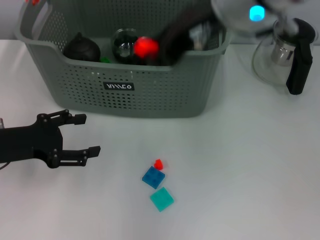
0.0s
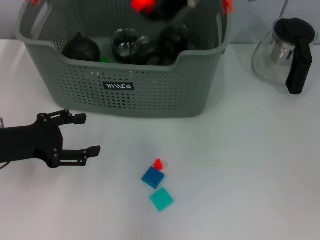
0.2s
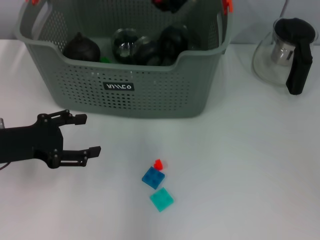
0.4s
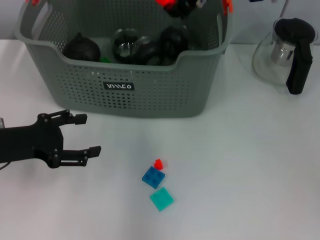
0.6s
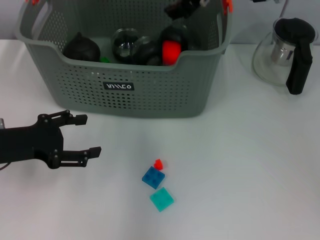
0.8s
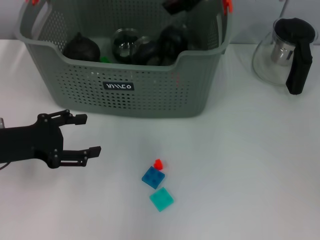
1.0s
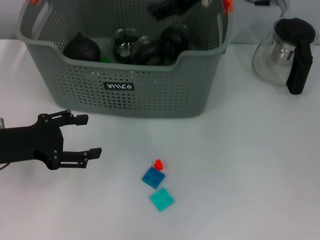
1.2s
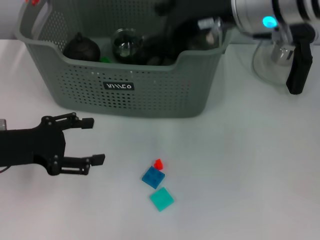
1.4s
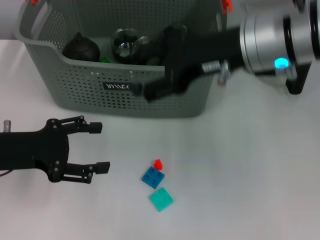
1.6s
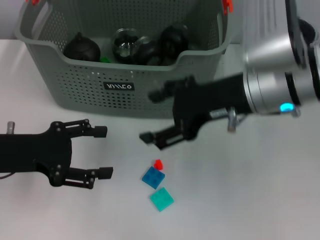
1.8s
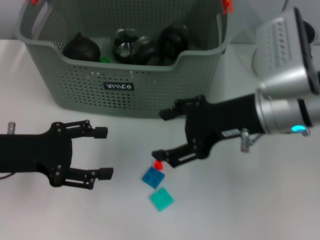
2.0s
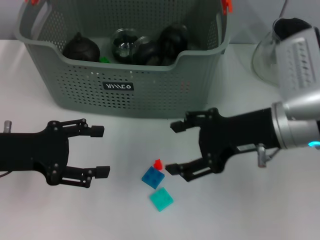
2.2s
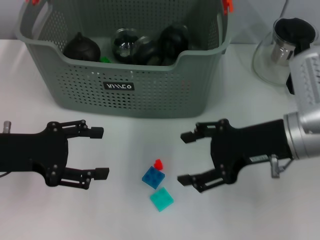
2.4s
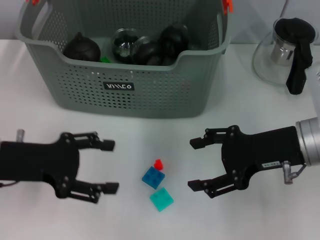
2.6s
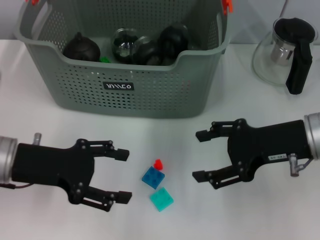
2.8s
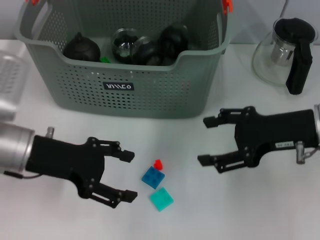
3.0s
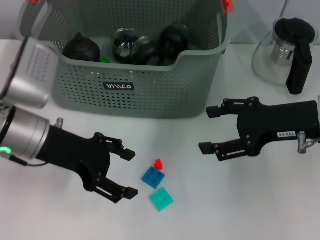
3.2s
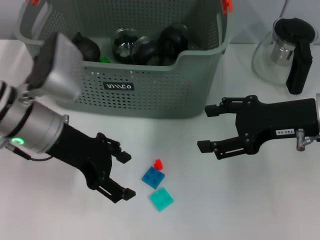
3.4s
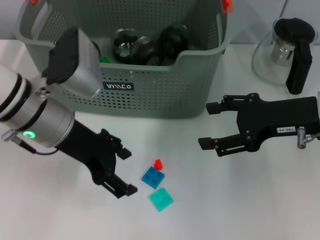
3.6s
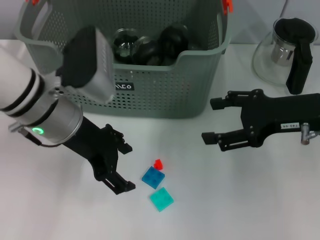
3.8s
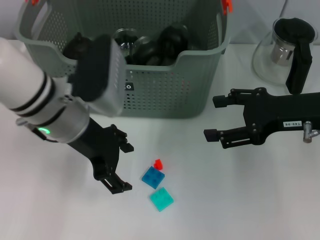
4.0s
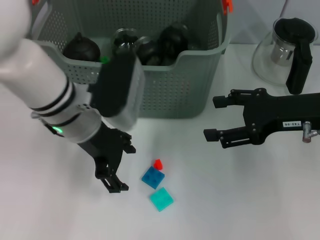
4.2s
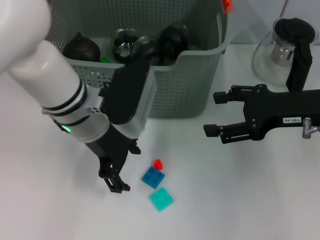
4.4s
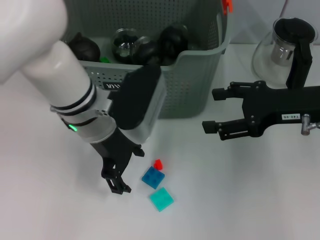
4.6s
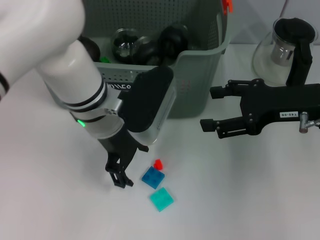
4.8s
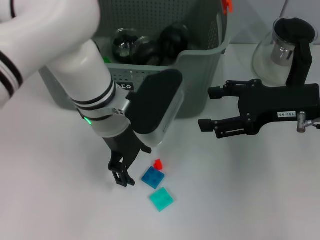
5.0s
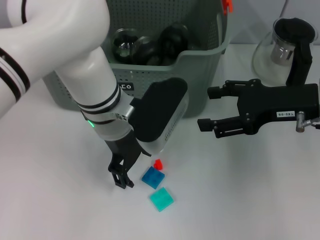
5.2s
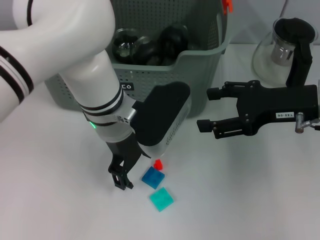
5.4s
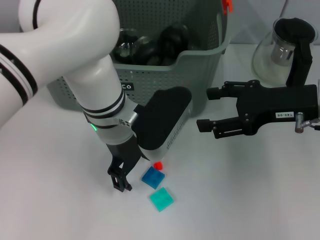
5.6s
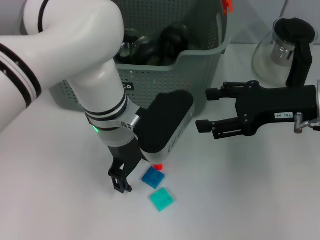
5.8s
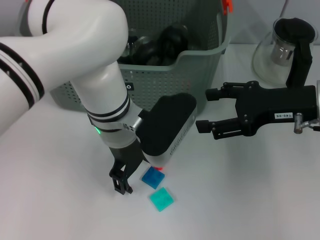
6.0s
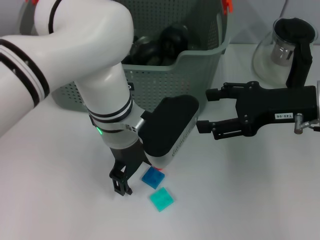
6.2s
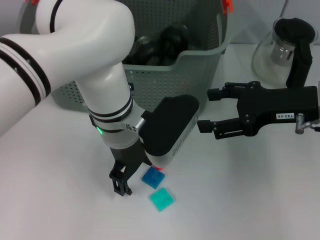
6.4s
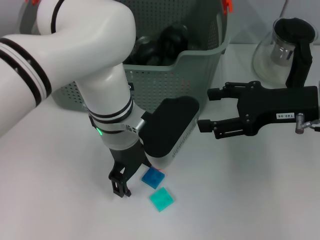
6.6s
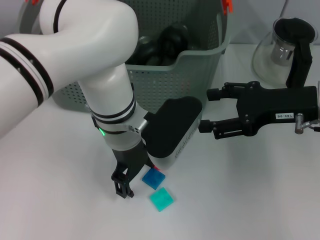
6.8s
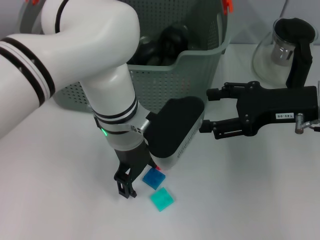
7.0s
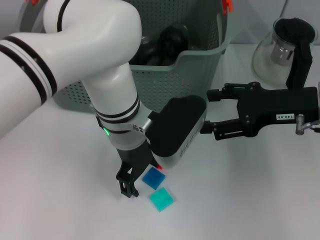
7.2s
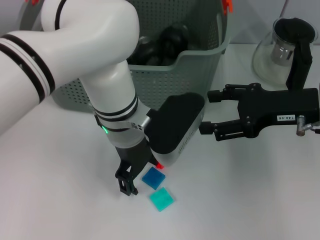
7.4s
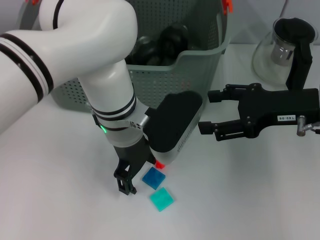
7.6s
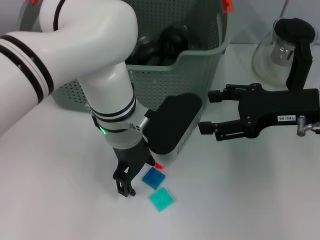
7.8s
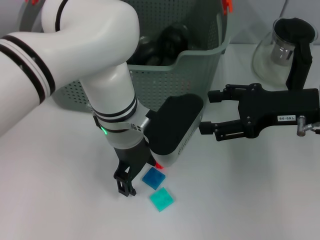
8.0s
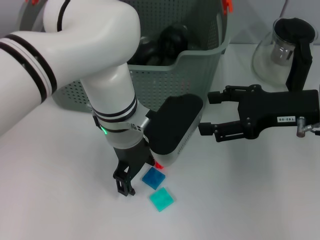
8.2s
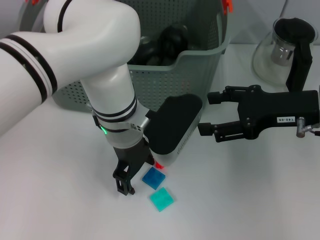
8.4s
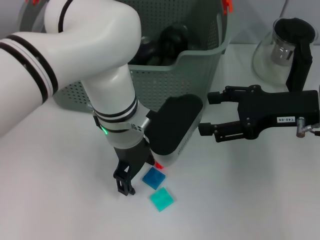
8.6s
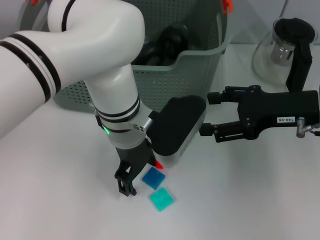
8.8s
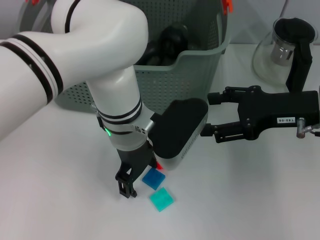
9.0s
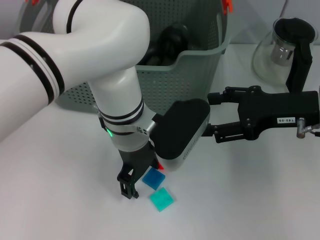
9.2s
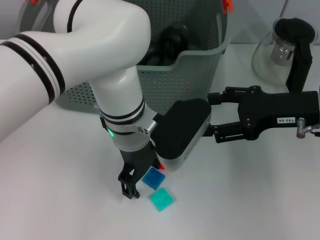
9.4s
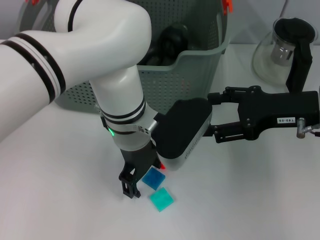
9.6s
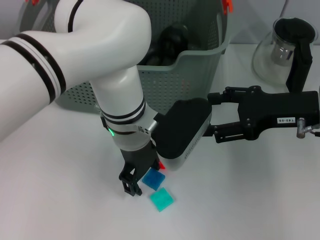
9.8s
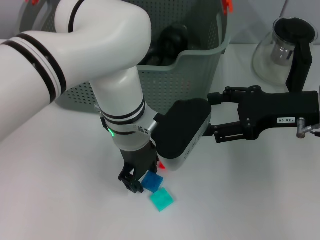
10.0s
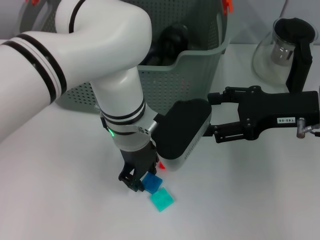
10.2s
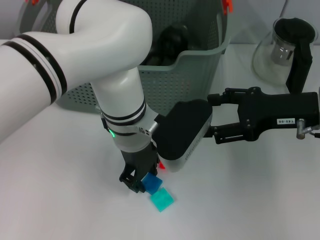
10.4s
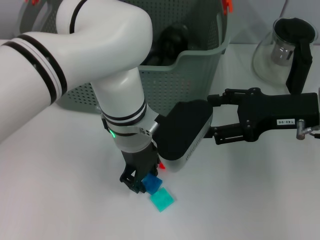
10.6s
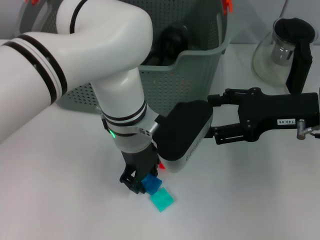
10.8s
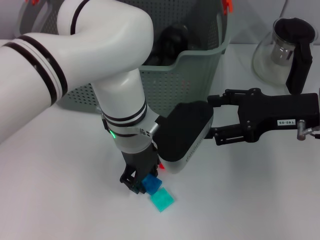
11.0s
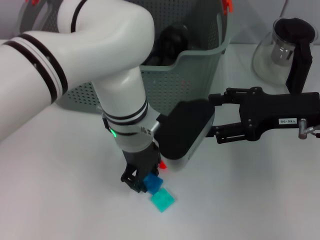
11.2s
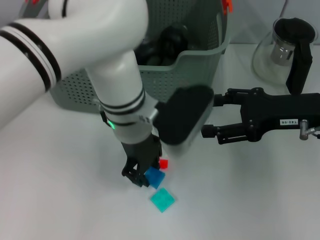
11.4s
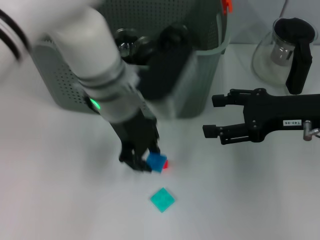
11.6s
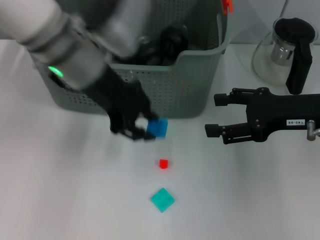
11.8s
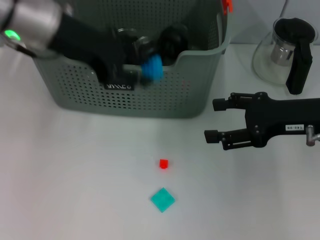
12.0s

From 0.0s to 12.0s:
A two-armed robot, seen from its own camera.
Task of the whole recording: pick up the teacup on the table and place it into the storage bin, pick up the block on the table and place it into the storage bin.
Step, from 1.0s to 10.4s: Grasp the dark blue block with left gripper.
From 0.0s to 1.6s: The right gripper moves downward, approximately 5 cm, reaches some 10 cm forward, then returns, and opens its fingers.
From 1.6s to 3.0s: The right gripper goes approximately 15 cm to the right and downward. Meanwhile the left gripper goes roughly 5 cm to the right.
From 3.0s to 4.4s: The left gripper is displaced to the right and forward by approximately 10 cm.
From 4.4s to 6.0s: The left gripper moves to the right, about 5 cm.
From 6.0s to 7.6s: The two grippers keep their place.
From 7.6s to 9.0s: Both grippers stay about where they are.
From 9.0s to 10.4s: The left gripper closes.
From 10.4s to 12.0s: The left gripper shifts about 20 cm to the left and upward.

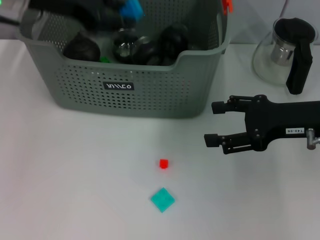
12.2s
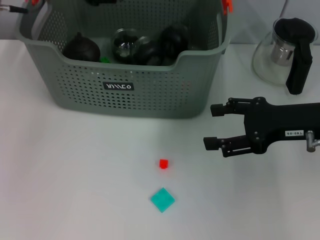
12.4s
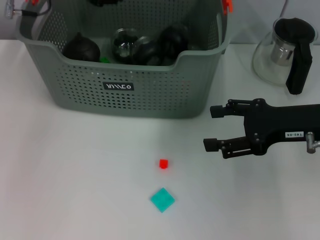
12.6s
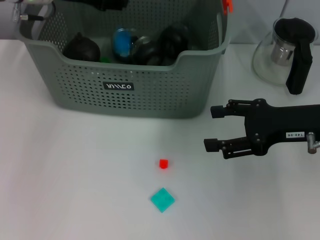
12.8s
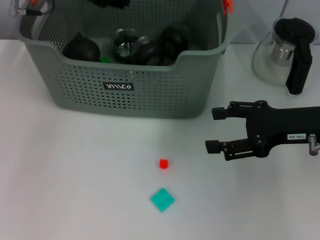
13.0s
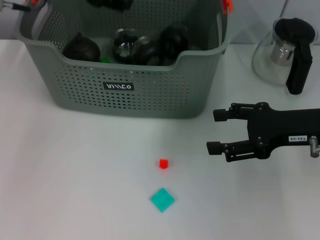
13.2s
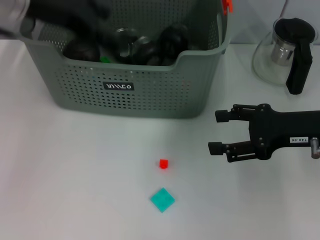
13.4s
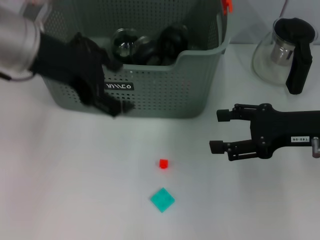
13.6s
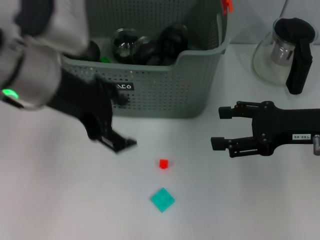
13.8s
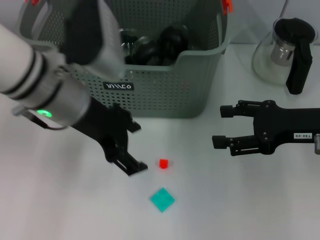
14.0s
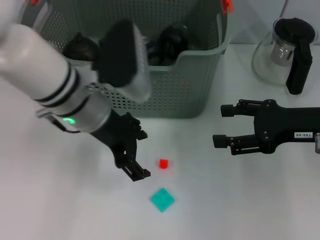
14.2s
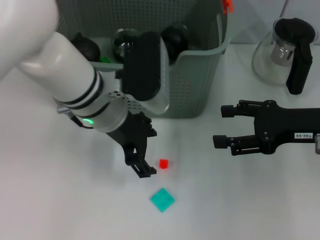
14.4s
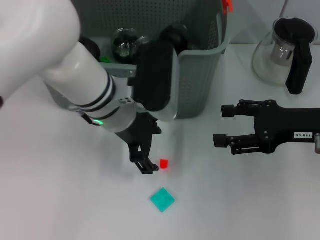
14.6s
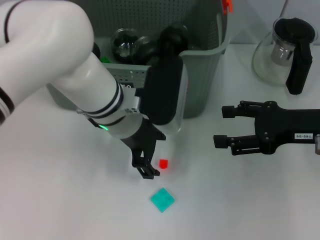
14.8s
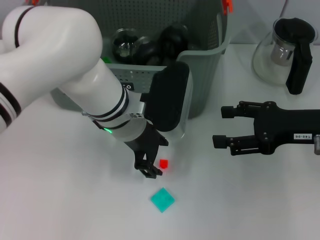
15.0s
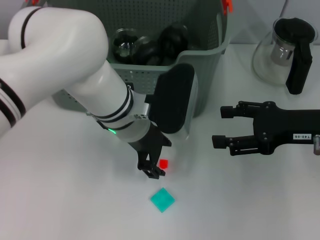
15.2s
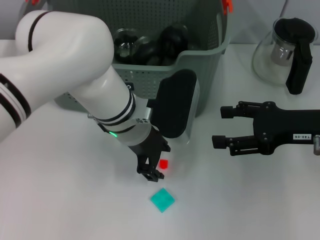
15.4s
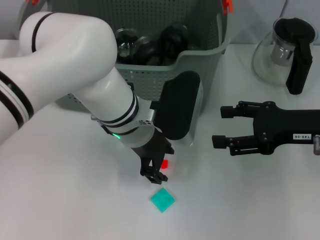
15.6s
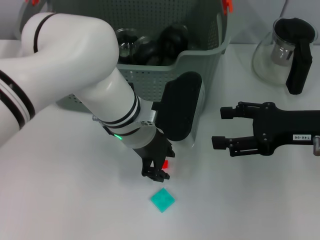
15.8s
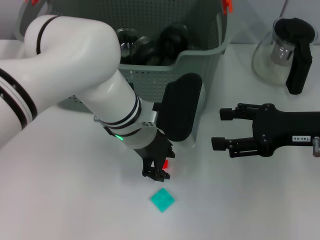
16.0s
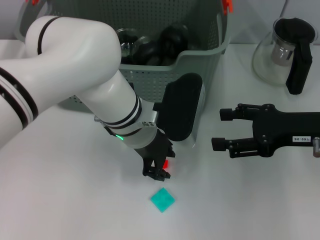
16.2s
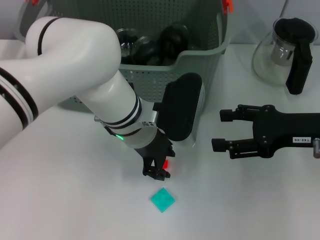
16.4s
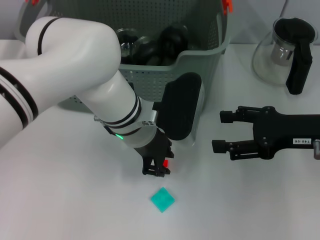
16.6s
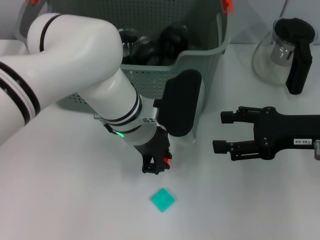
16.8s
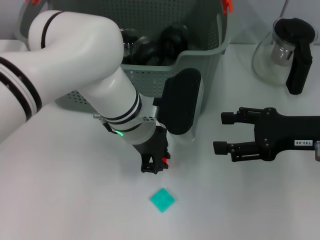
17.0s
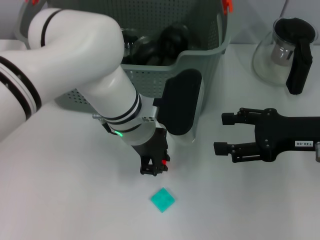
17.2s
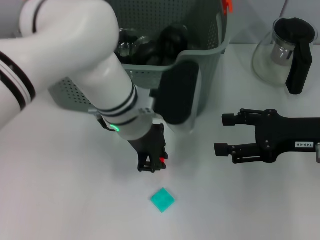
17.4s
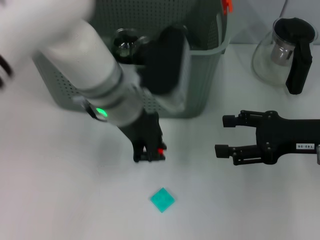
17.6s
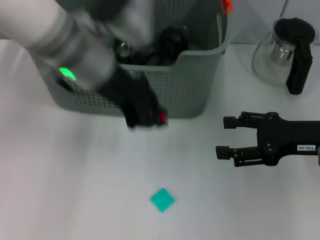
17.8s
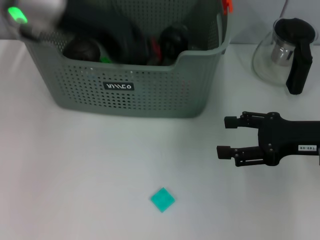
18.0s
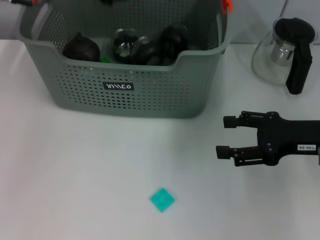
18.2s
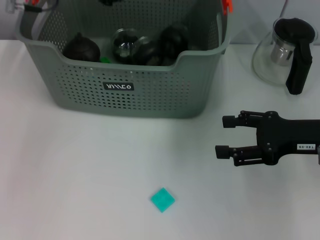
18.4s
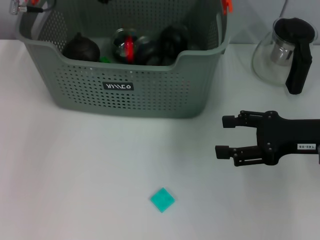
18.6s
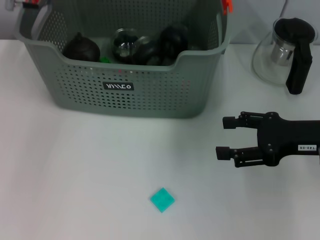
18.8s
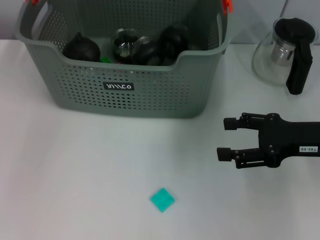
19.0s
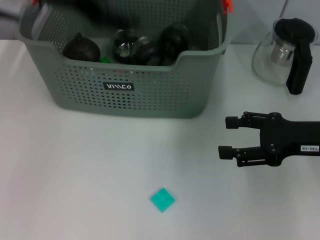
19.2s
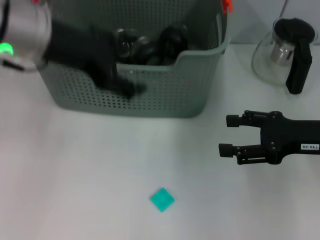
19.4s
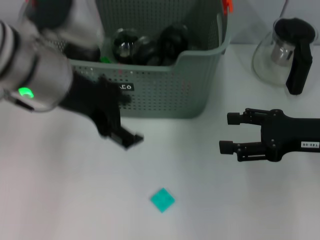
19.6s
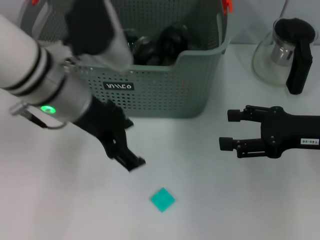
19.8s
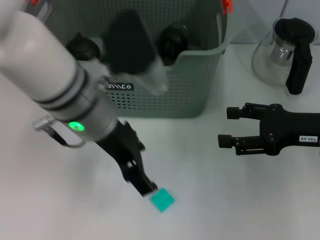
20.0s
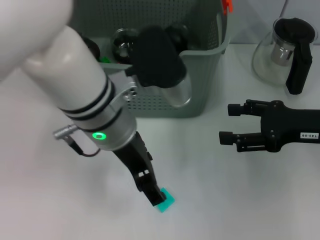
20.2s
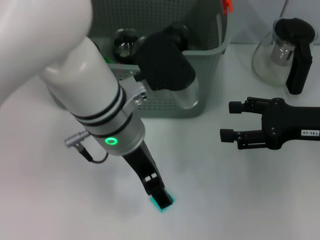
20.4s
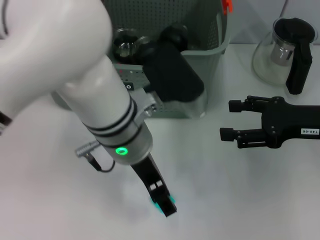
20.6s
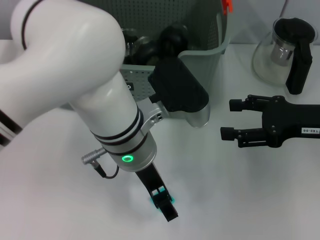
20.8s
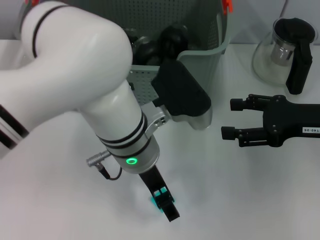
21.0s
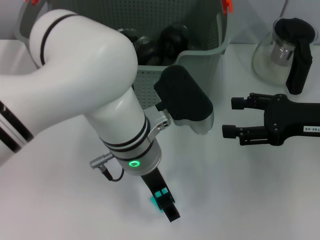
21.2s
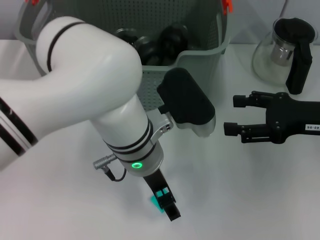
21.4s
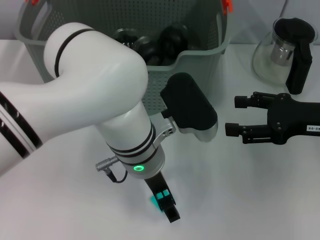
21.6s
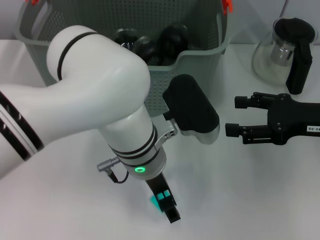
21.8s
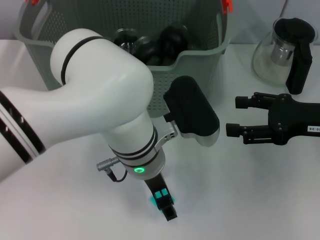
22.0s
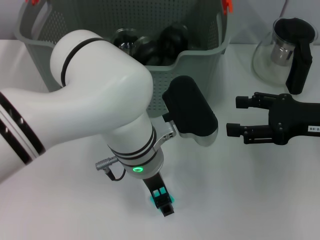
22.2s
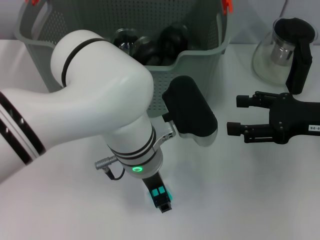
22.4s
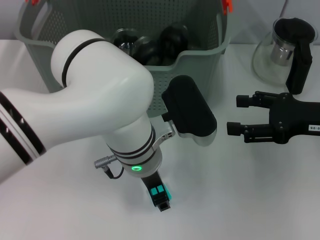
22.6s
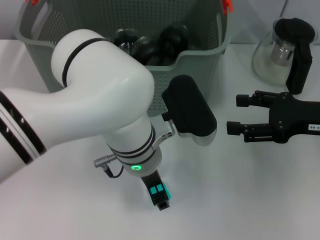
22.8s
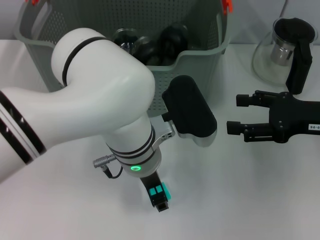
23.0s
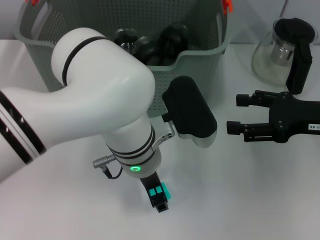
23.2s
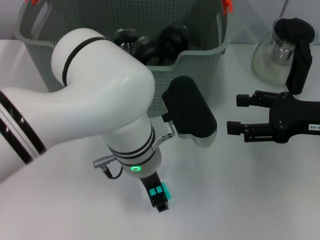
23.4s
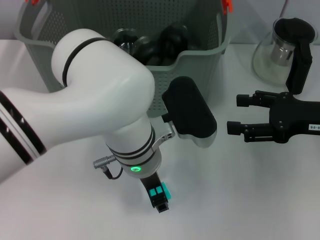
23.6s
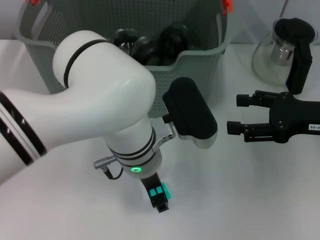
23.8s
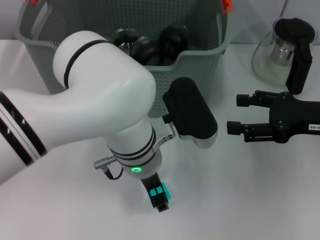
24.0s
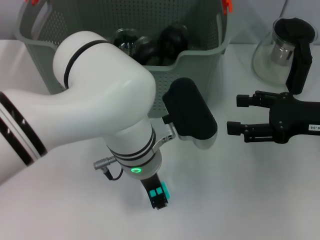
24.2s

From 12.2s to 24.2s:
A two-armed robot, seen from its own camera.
Task of the whole recording: pick up the teacup on the table and place it into the storage bin, pick up the block on the table and place it into the storage bin.
Step, from 13.2s to 16.8s: Grasp the orange block with left gripper.
Step, from 17.0s to 18.6s: Place the orange block in the storage box with left gripper.
From 12.2s to 13.8s: The left gripper shifts approximately 10 cm backward and to the right, and opens.
From 13.8s to 15.2s: The left gripper goes approximately 15 cm to the right and downward.
From 15.2s to 16.6s: The grippers stay close to where they were, moving slightly.
From 16.6s to 18.2s: The left gripper is displaced upward and to the left by about 20 cm.
From 18.2s to 19.8s: The left gripper travels backward, downward and to the right by some 15 cm, and opens.
From 19.8s to 21.2s: The left gripper travels to the right and downward by approximately 10 cm.
From 22.6s to 24.2s: Both grippers stay about where they are.
